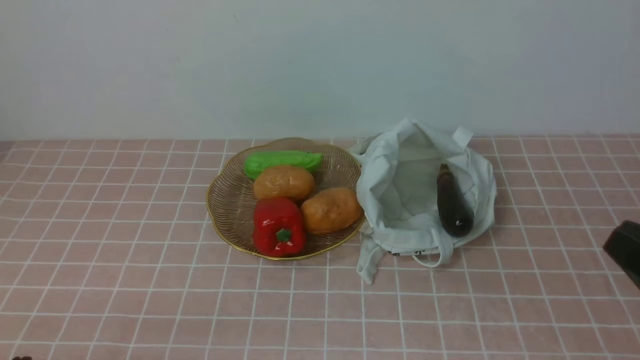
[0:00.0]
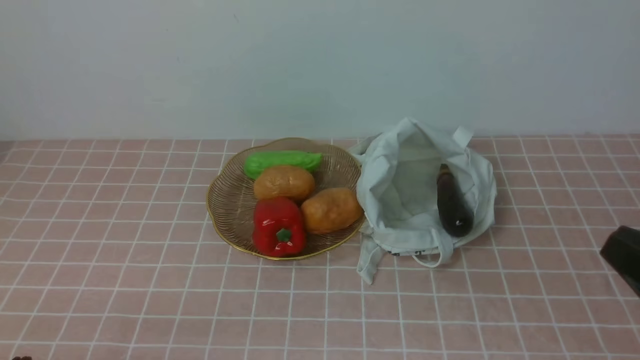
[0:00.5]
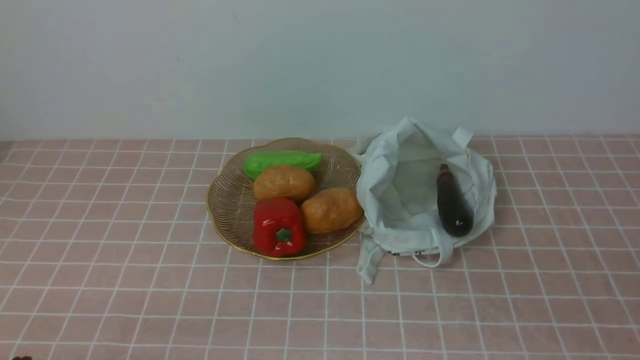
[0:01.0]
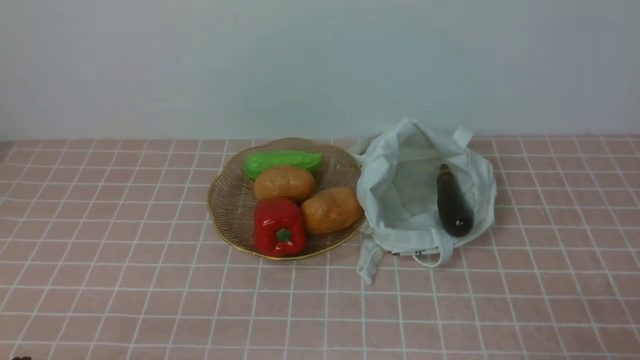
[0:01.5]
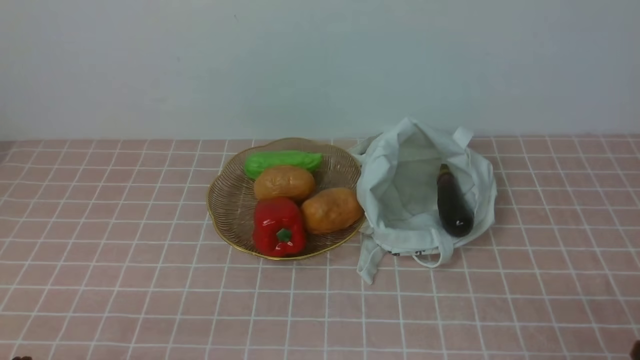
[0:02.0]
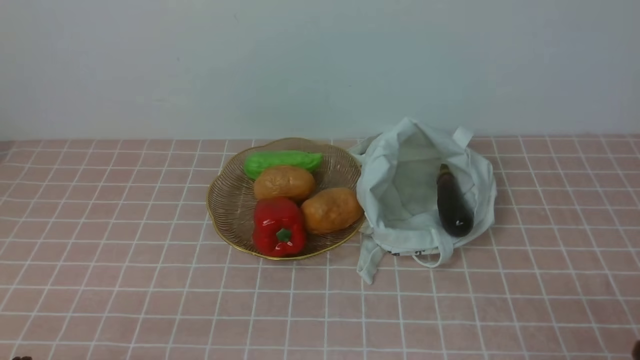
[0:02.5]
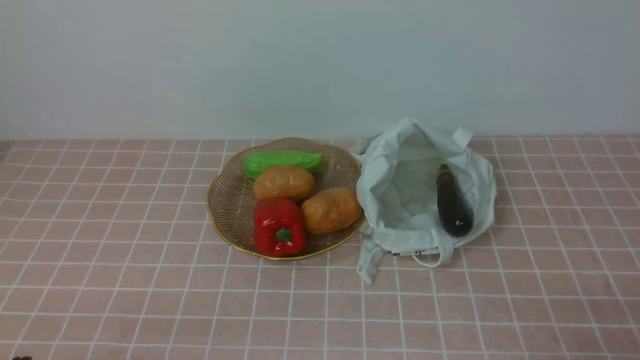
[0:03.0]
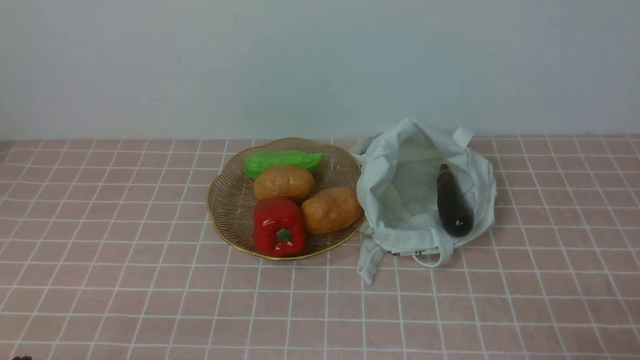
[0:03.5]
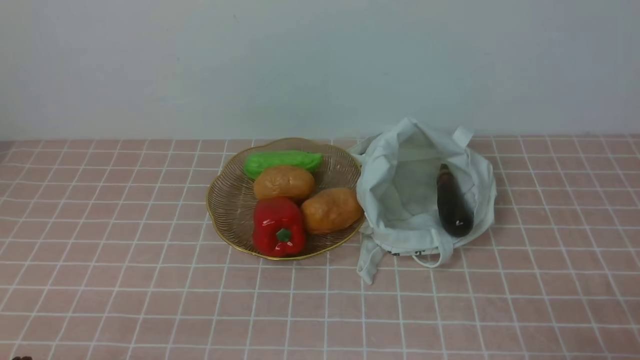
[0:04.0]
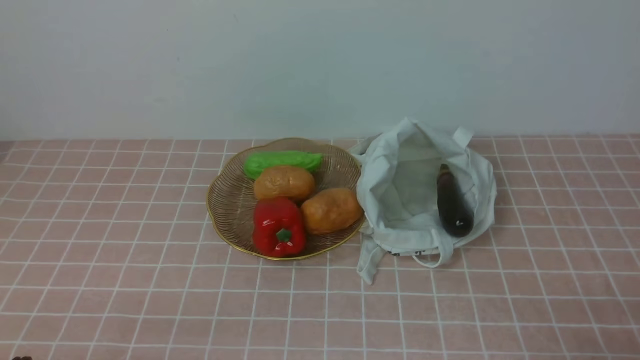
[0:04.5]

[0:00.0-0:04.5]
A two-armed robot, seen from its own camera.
Task of the whole recording: take vegetables from bag on pink coffee tablecloth place on plate.
0:00.0 to 0:02.0: The right gripper is displaced downward by approximately 10 cm.
